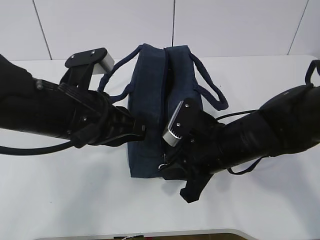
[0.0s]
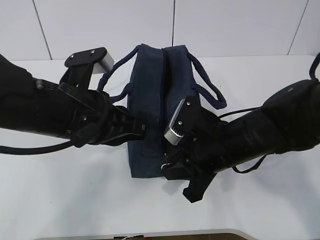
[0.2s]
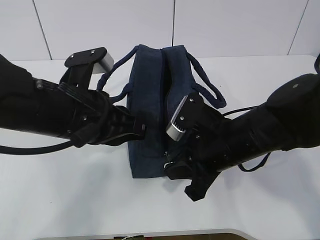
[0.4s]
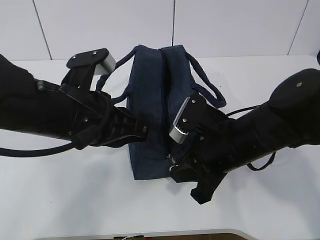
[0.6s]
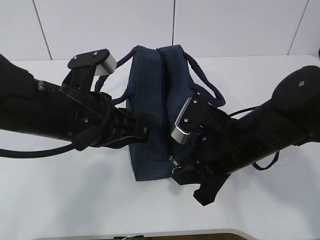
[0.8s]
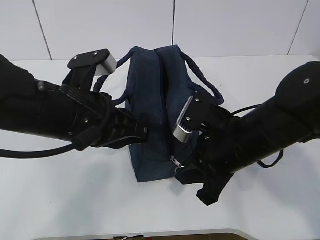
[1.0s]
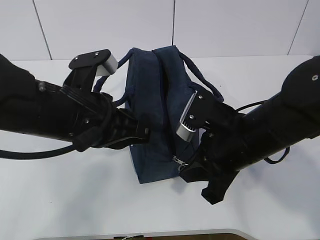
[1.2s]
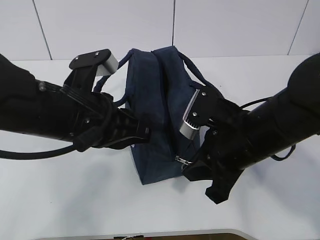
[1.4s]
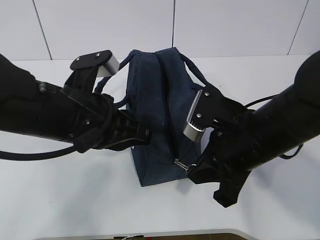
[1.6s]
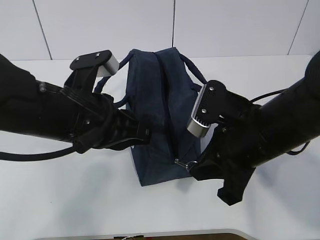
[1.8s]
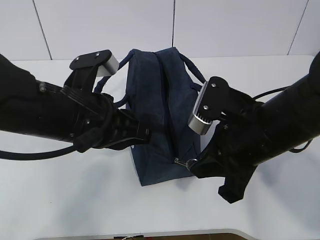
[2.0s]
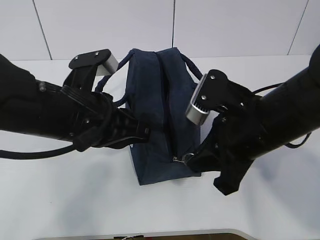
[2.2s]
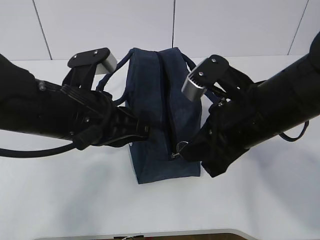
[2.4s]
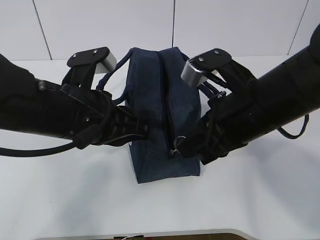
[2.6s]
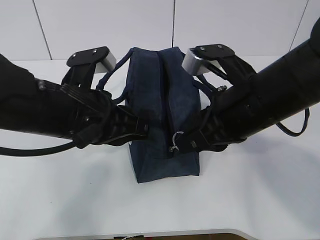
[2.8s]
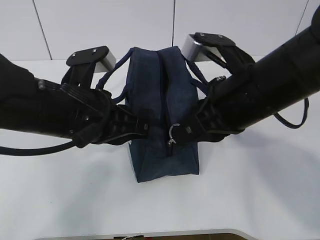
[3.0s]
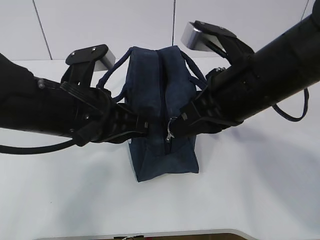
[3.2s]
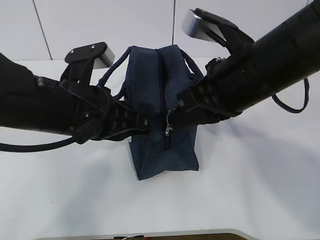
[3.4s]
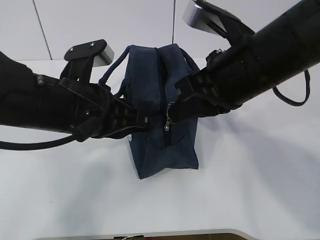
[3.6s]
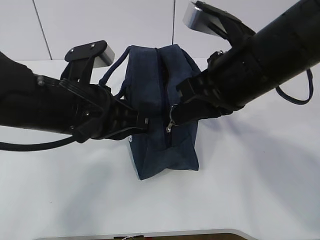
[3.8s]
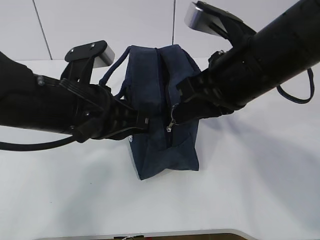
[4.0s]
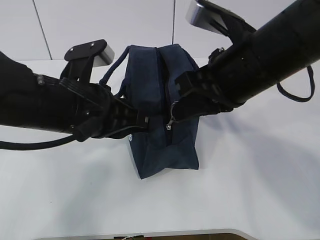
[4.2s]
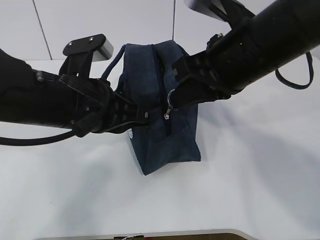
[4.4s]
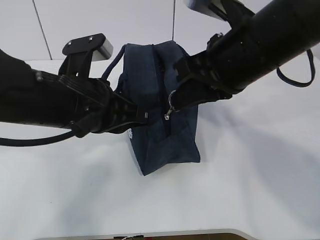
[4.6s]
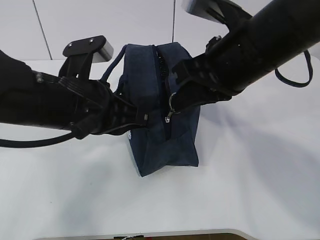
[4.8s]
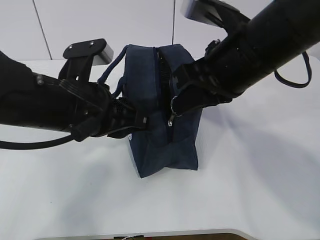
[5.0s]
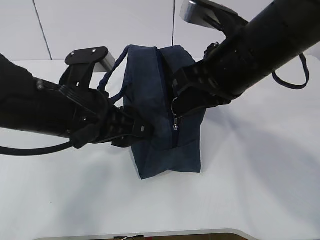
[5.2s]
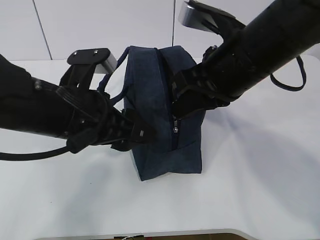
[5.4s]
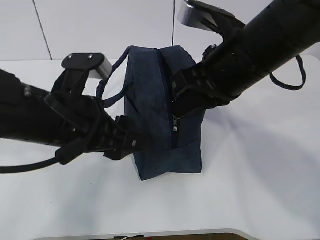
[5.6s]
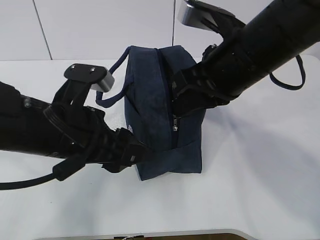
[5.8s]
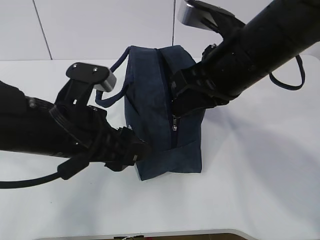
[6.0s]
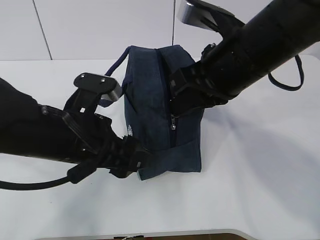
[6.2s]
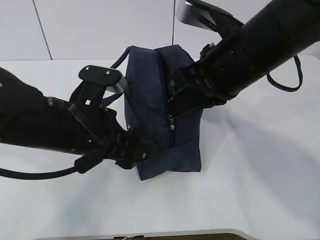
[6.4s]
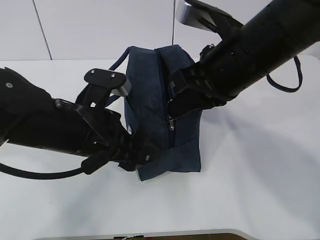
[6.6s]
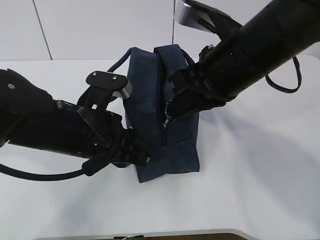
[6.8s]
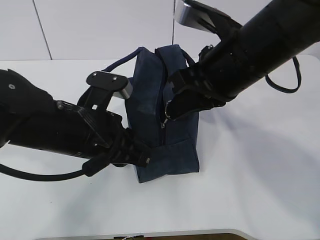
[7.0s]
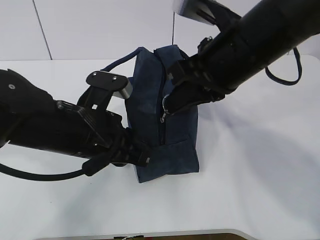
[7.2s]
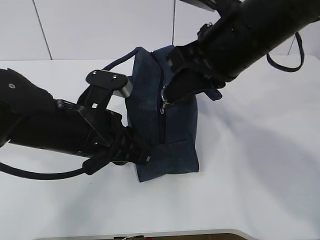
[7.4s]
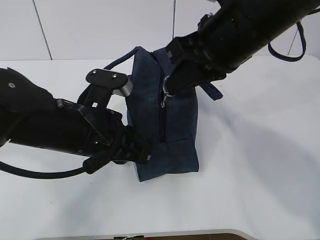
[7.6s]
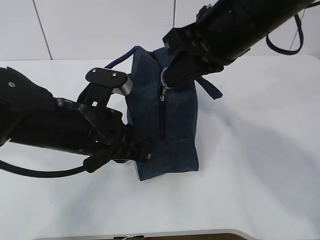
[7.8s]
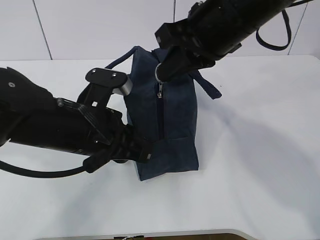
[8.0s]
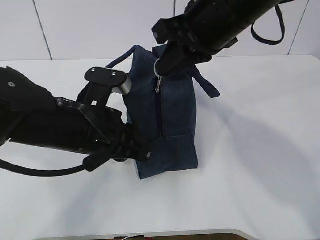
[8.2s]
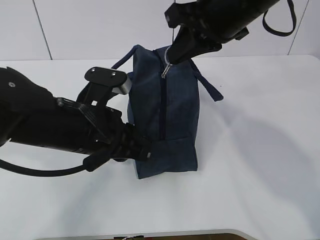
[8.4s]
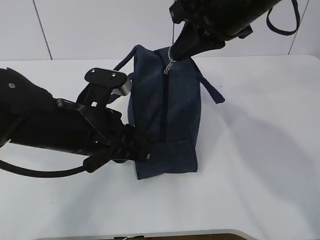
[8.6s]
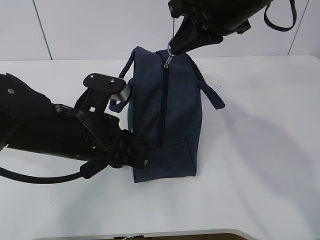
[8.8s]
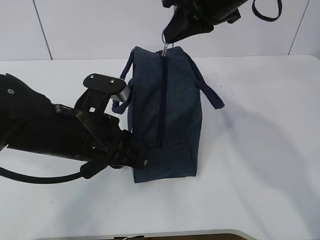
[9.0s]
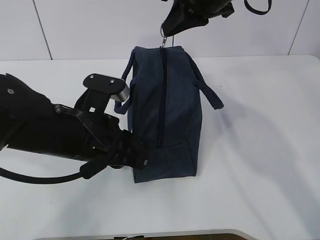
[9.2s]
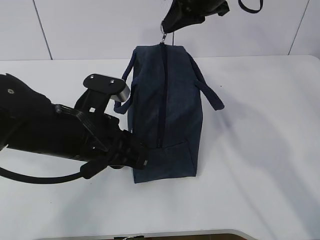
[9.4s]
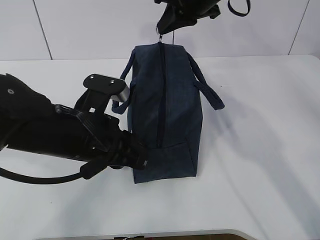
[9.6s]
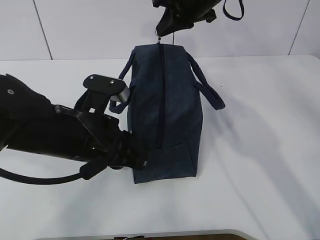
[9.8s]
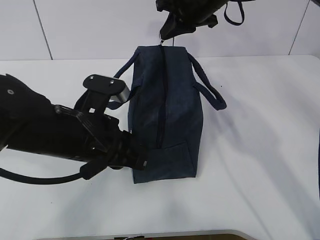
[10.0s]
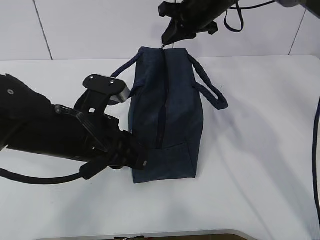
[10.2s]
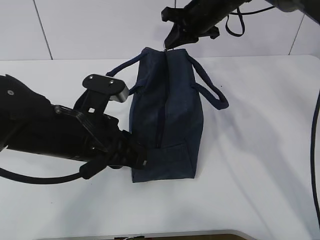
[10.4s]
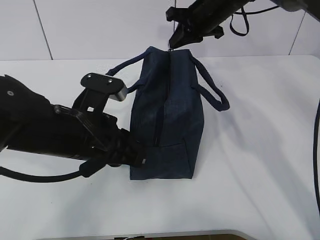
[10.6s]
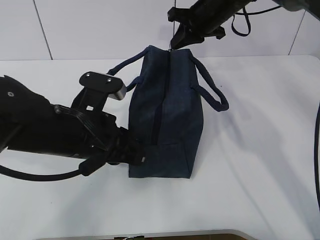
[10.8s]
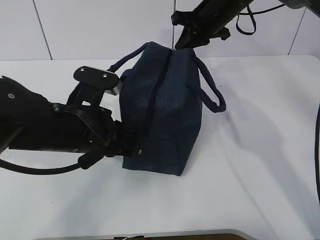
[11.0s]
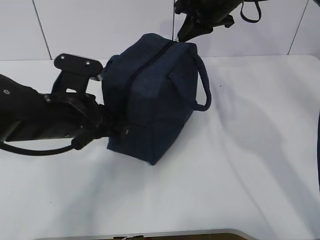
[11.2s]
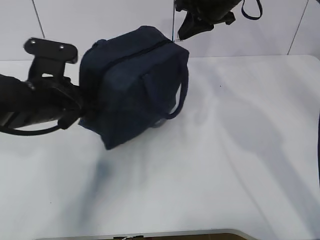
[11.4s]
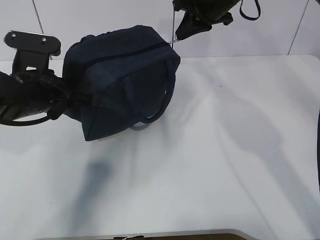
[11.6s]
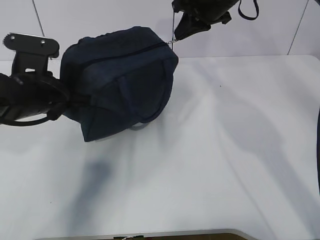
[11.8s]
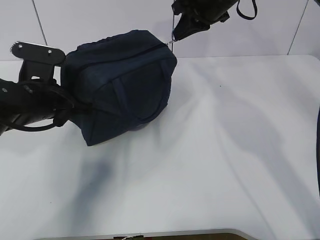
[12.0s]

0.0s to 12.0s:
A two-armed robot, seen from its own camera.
Step, 0.0s to 5.6s: Grab the lunch bag with your left hand.
Step, 5.8s to 11.4s: Pull the zipper with your right hand.
0.0s to 1.6s: The right gripper shifts roughly 5 cm upward.
1.6s to 3.0s: The right gripper moves upward, about 5 cm.
4.4s to 6.0s: The left gripper opens its fingers.
6.0s to 7.6s: The left gripper closes.
7.6s to 9.0s: The right gripper goes about 10 cm forward.
9.0s to 10.4s: The right gripper is displaced forward and downward by about 15 cm.
10.4s to 12.0s: The left gripper goes some 10 cm to the left and forward.

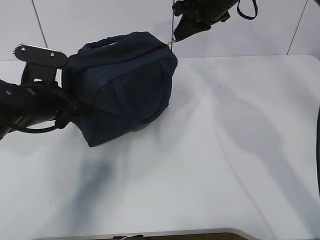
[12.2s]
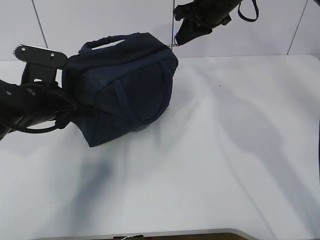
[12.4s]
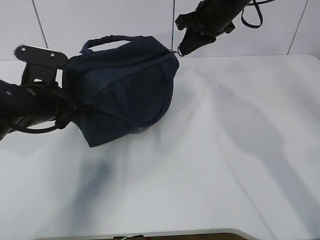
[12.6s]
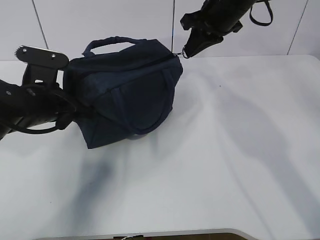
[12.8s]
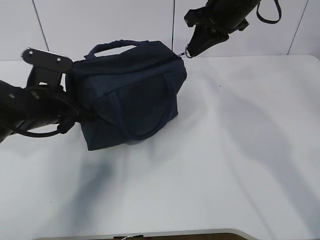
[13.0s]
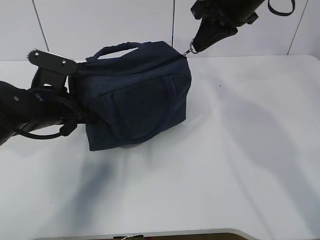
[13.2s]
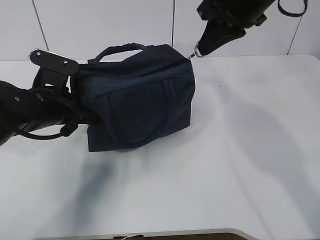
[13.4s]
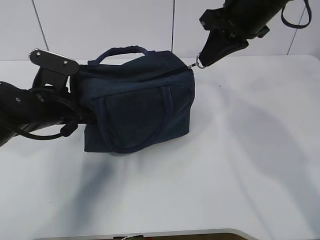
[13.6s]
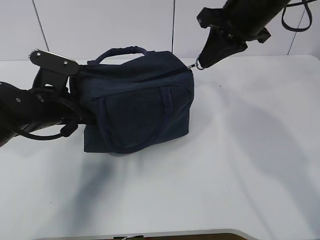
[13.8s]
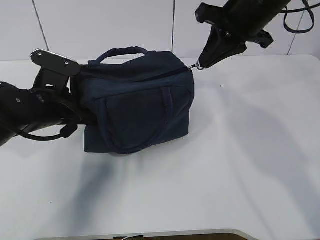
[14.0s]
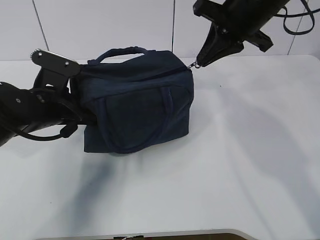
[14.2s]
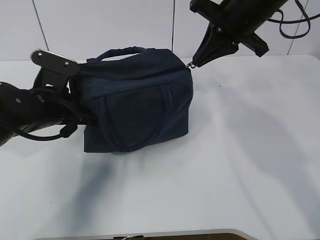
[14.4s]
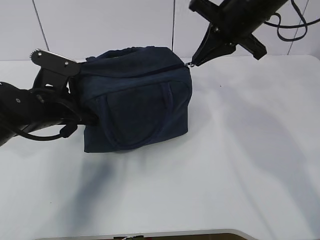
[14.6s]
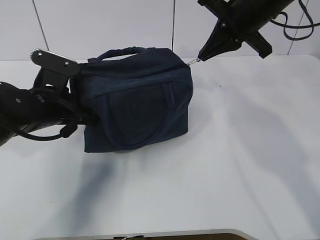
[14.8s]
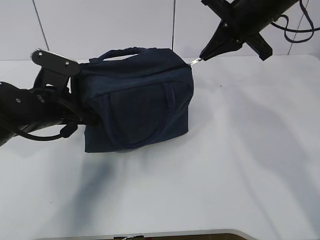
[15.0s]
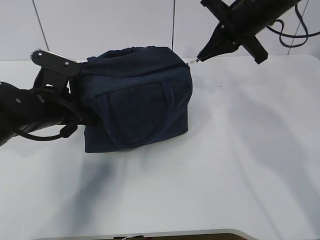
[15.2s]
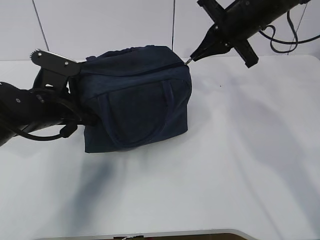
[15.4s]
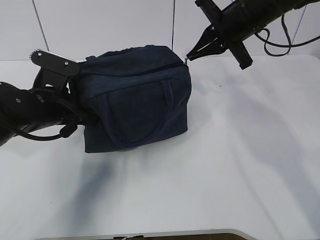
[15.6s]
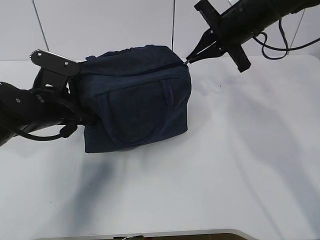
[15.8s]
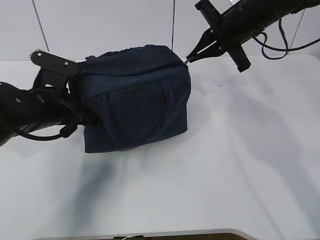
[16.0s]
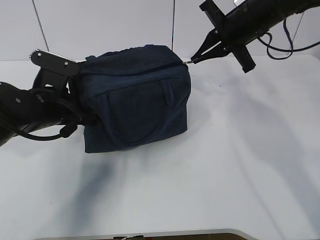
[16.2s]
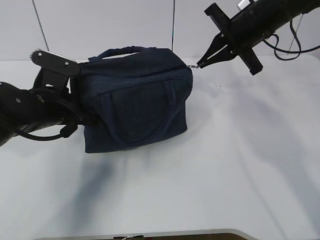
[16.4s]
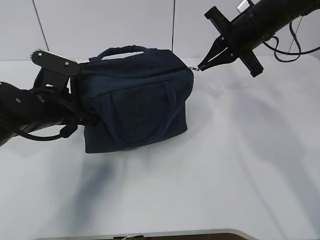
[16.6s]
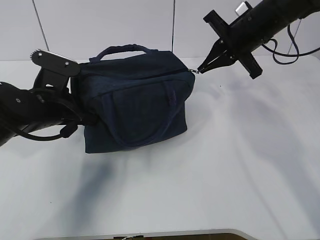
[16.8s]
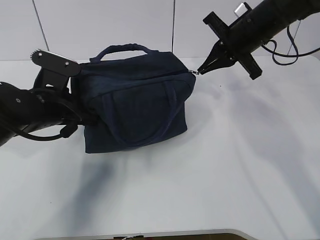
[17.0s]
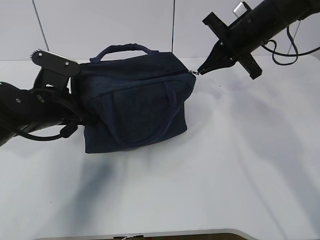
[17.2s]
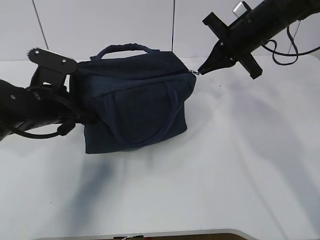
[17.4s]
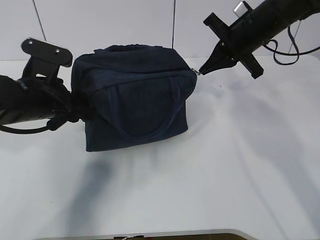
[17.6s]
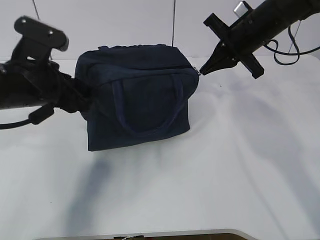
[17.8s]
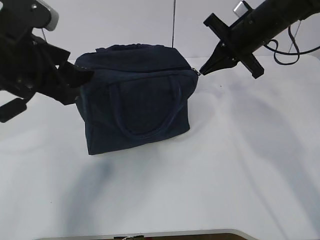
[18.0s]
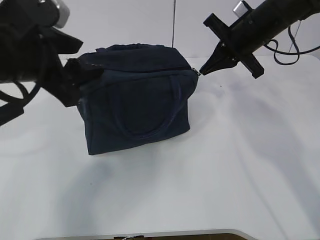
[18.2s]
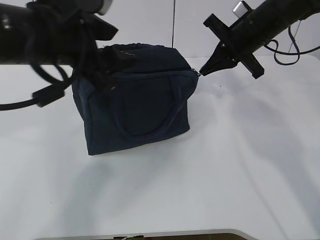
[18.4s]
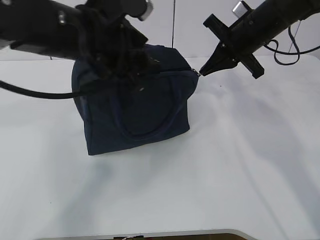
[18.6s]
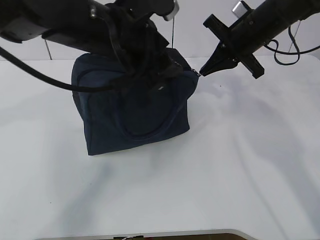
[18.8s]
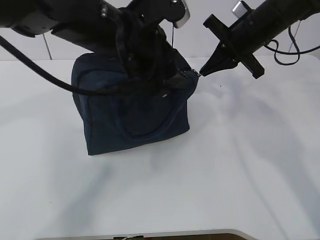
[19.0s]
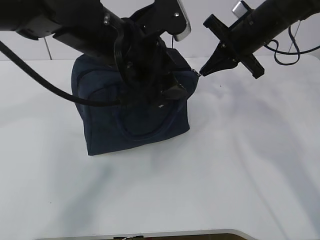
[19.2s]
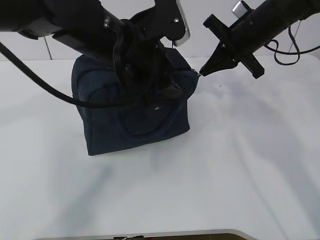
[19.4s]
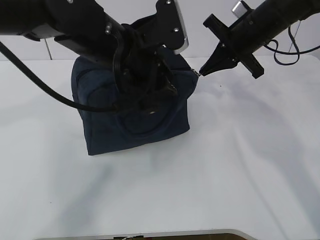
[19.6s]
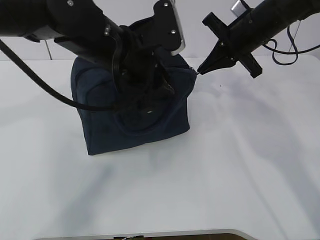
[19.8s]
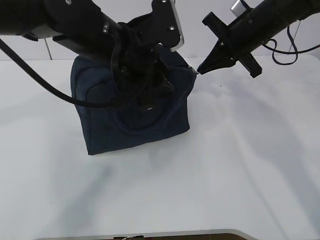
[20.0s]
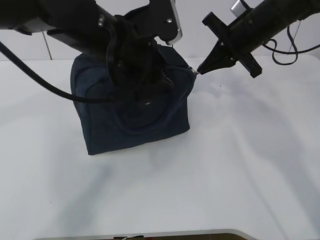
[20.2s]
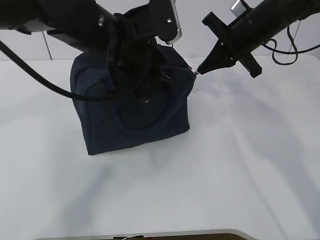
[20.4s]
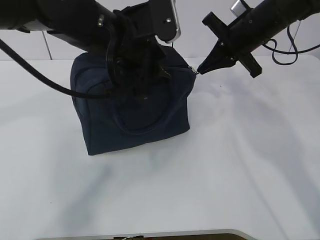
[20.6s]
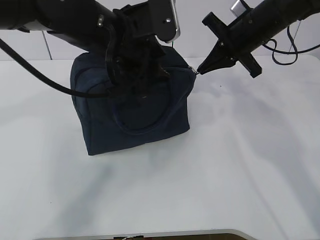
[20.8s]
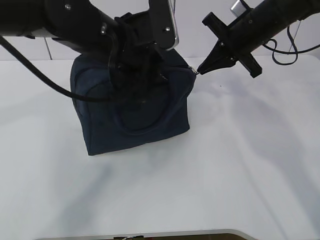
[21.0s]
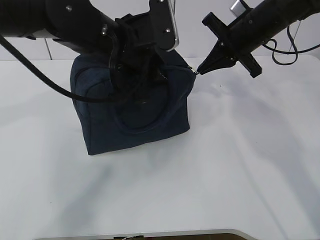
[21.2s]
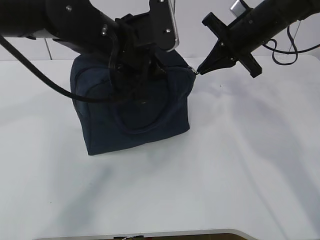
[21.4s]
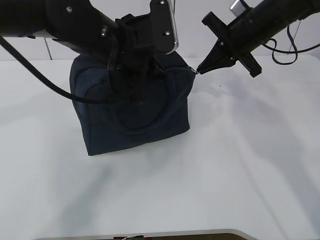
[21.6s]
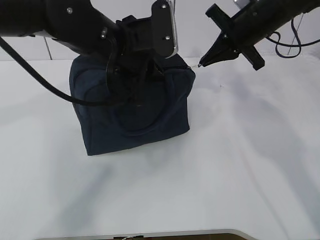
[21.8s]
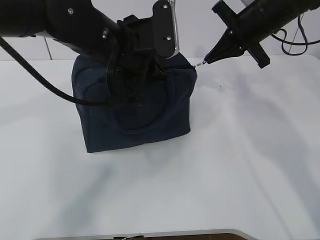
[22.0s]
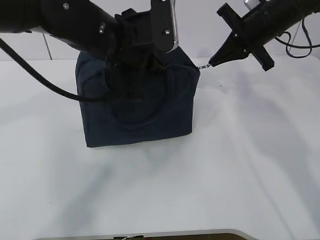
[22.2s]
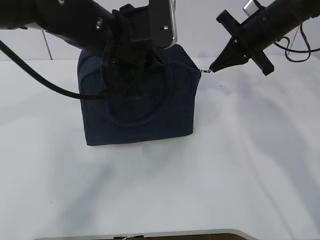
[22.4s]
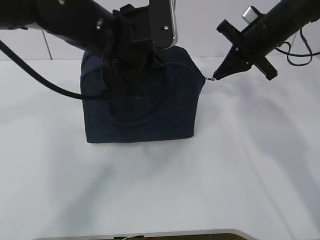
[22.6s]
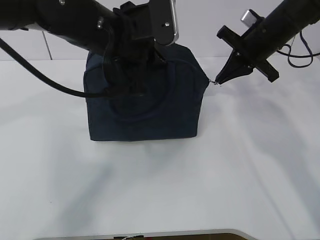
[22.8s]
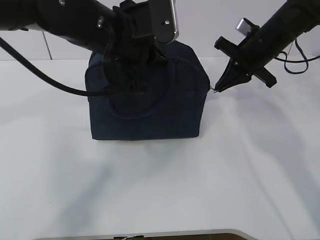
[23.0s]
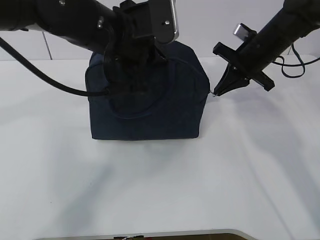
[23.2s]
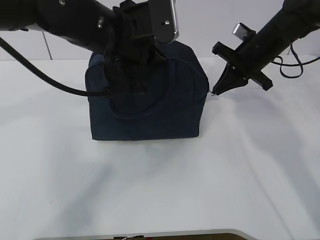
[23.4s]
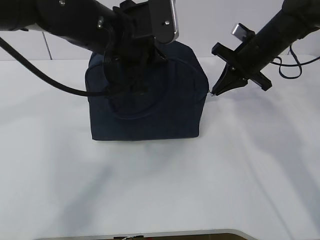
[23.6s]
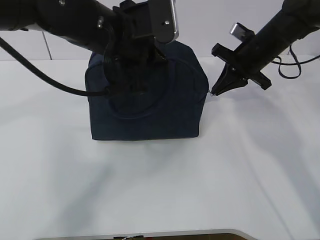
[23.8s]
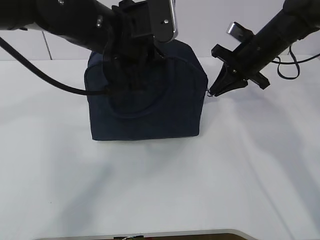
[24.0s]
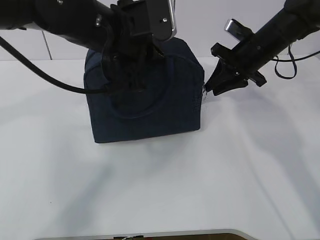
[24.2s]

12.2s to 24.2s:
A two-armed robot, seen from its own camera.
12.2s to 13.8s: The right gripper heads backward, covering about 10 cm.
15.2s to 16.6s: There are only small adjustments of the grippers.
16.6s to 18.2s: The left gripper heads upward and backward, covering roughly 15 cm, and opens.
18.2s to 19.8s: The left gripper is displaced to the right and forward by some 15 cm, and closes.
19.8s to 21.2s: The grippers make only small movements.
21.2s to 22.6s: The left gripper closes.
22.6s to 24.2s: The right gripper opens.
